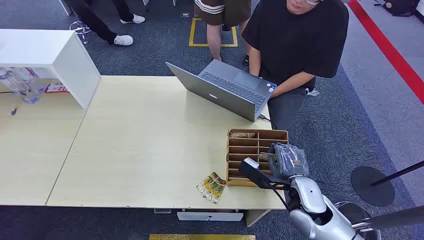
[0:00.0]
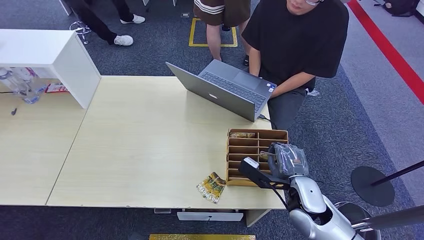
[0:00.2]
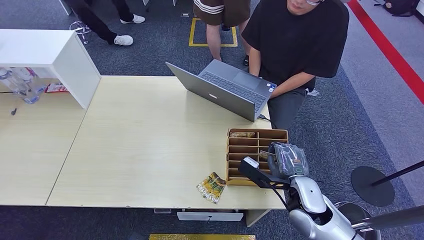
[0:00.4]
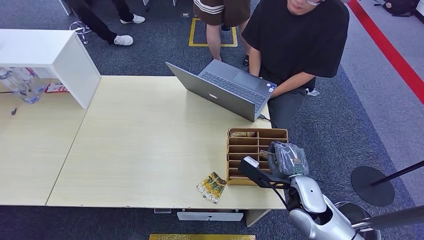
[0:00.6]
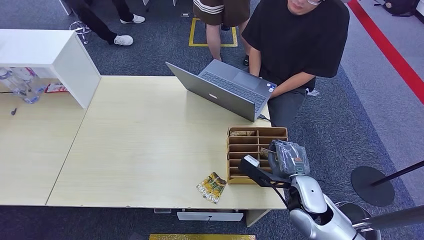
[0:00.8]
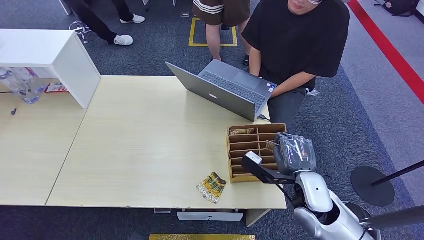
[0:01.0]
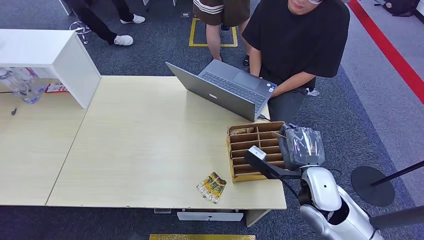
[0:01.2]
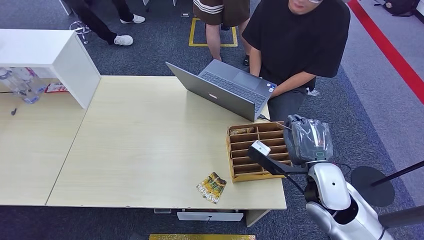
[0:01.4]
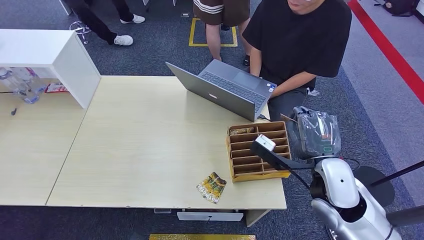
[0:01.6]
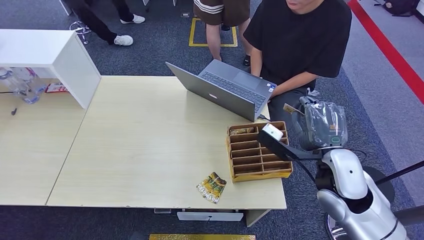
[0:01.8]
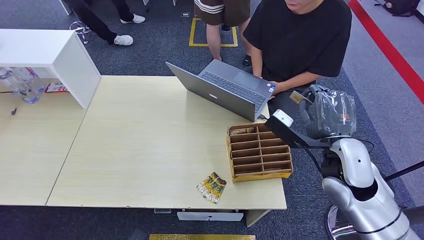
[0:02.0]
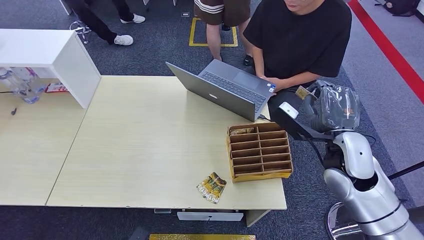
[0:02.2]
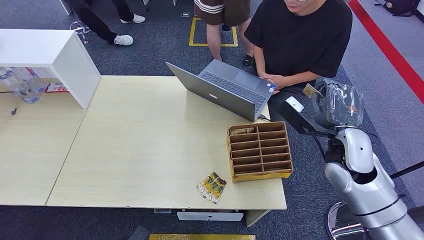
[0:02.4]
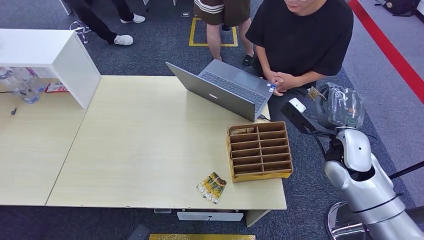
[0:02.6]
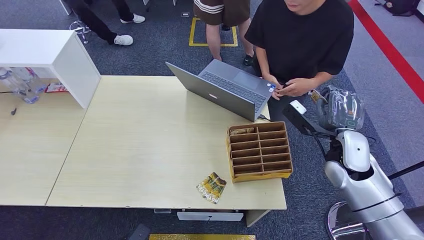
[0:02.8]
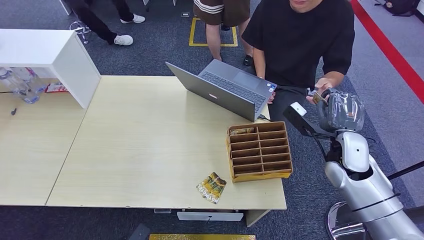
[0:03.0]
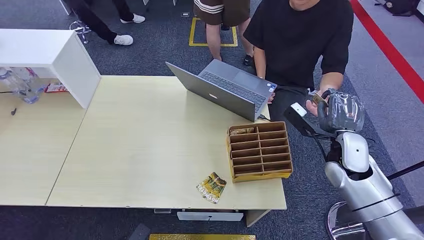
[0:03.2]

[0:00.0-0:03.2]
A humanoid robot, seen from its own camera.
Step, 0:00.0 to 0:02.0: Pick up the key card from the card box.
Step, 0:02.2 to 0:03.0: Hand the key card to the target.
0:01.6 to 0:03.2: The right hand goes about 10 cm to the right and forward.
